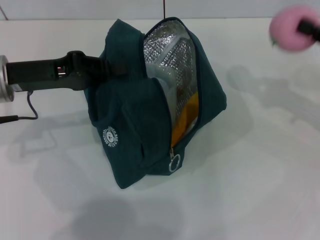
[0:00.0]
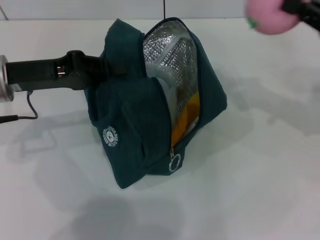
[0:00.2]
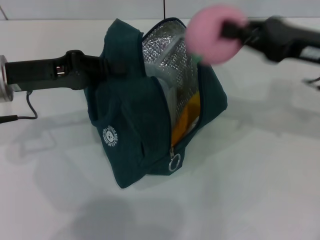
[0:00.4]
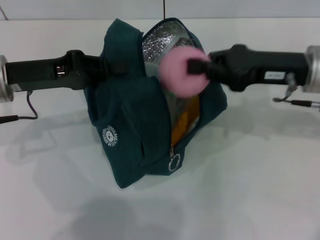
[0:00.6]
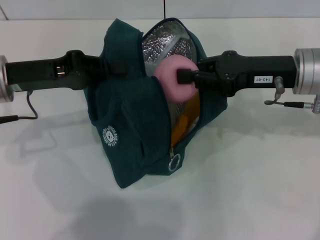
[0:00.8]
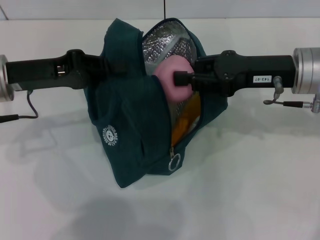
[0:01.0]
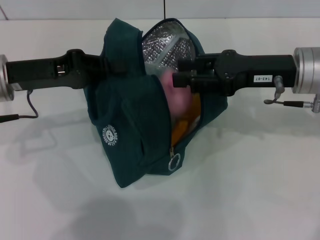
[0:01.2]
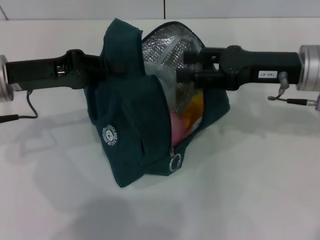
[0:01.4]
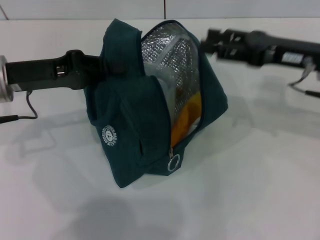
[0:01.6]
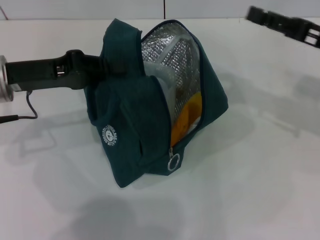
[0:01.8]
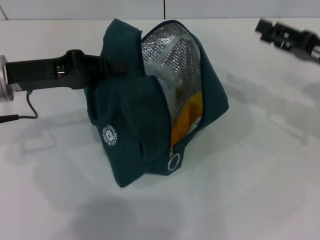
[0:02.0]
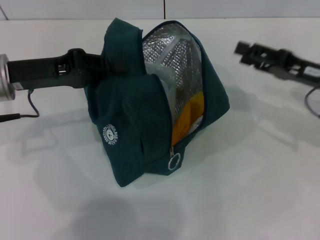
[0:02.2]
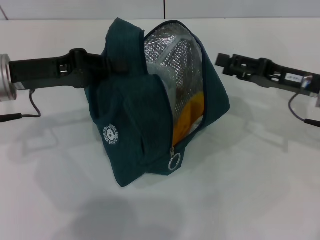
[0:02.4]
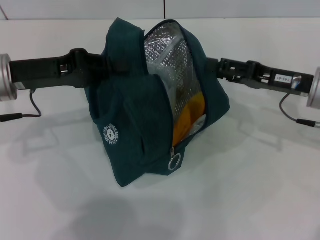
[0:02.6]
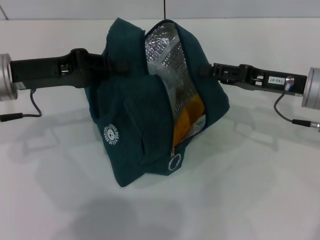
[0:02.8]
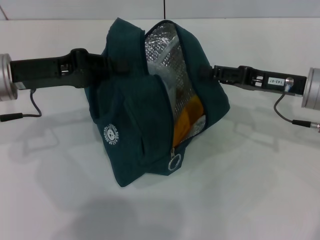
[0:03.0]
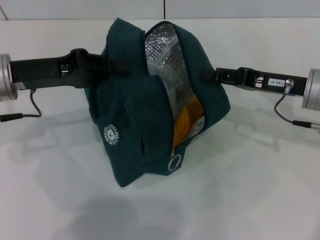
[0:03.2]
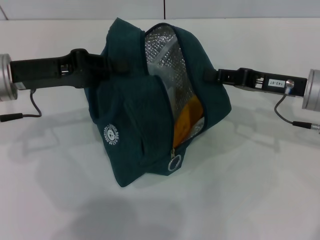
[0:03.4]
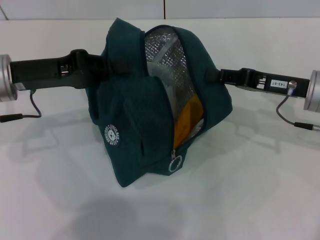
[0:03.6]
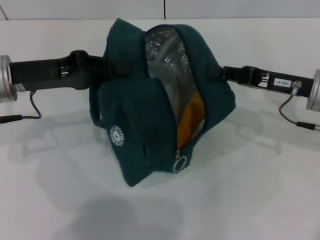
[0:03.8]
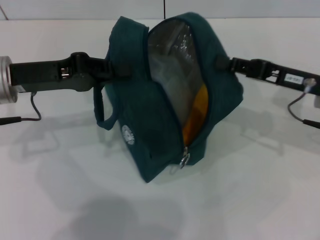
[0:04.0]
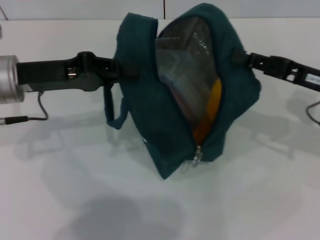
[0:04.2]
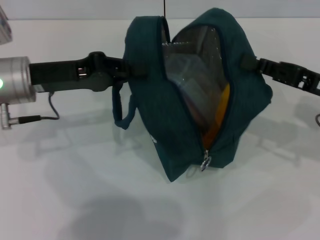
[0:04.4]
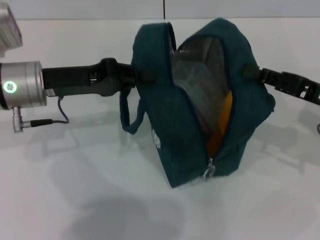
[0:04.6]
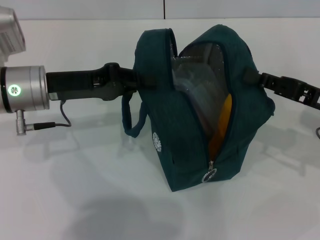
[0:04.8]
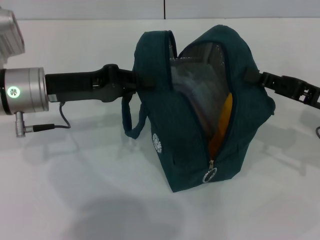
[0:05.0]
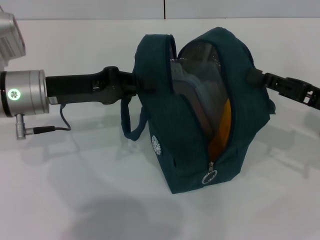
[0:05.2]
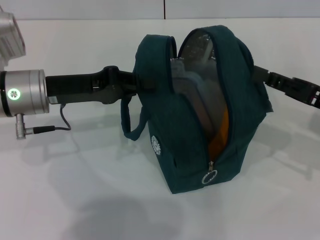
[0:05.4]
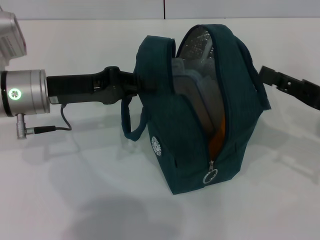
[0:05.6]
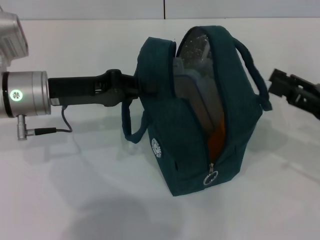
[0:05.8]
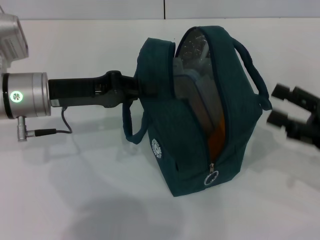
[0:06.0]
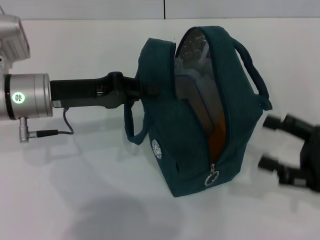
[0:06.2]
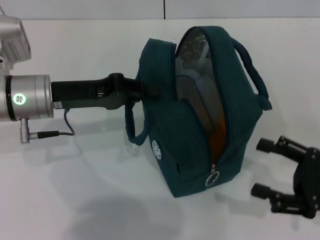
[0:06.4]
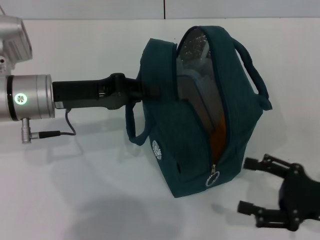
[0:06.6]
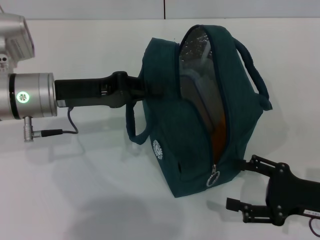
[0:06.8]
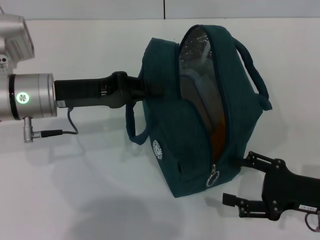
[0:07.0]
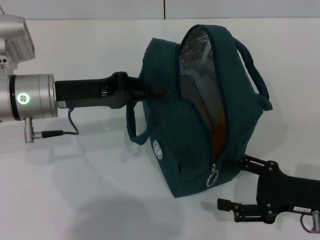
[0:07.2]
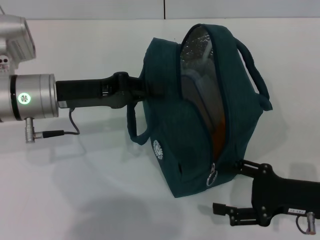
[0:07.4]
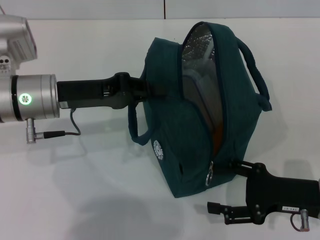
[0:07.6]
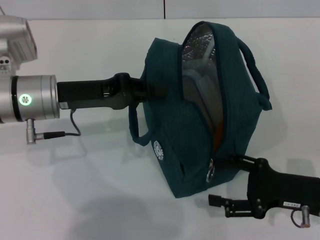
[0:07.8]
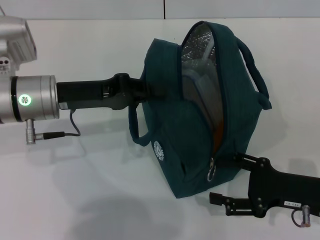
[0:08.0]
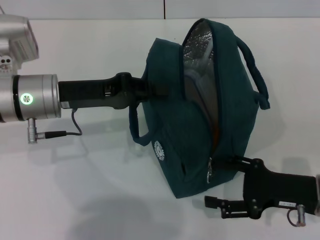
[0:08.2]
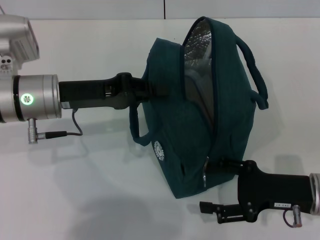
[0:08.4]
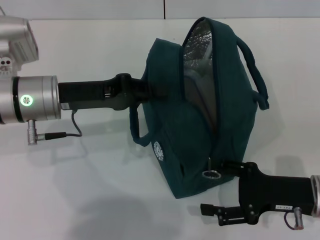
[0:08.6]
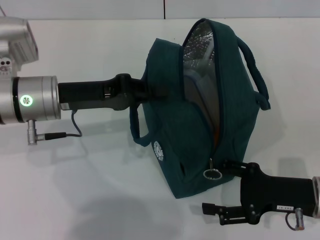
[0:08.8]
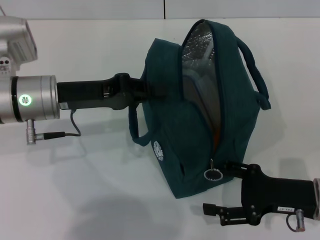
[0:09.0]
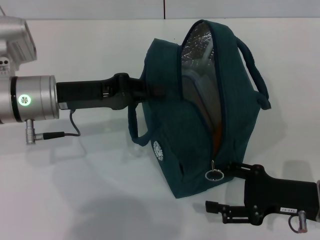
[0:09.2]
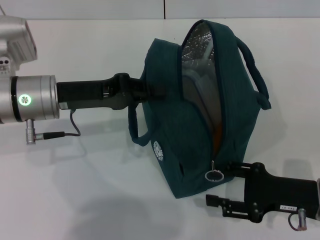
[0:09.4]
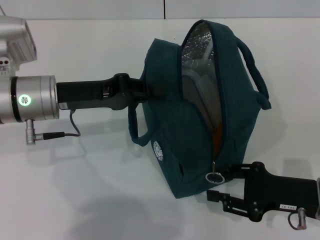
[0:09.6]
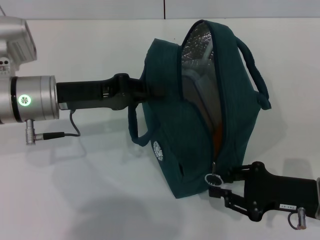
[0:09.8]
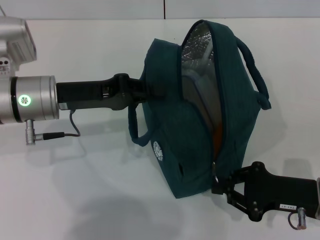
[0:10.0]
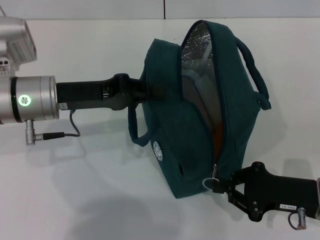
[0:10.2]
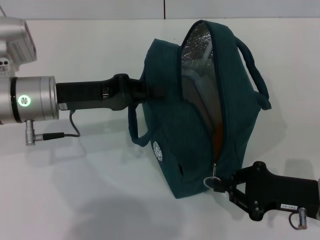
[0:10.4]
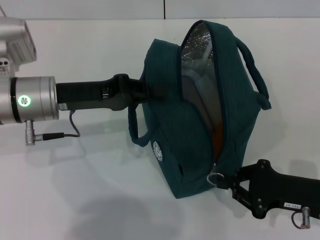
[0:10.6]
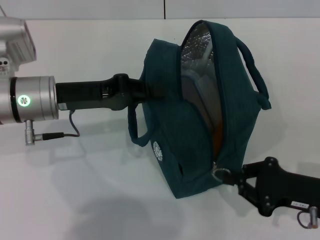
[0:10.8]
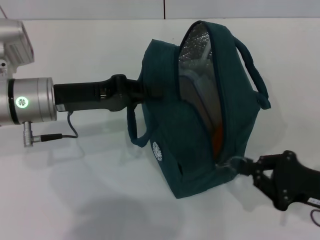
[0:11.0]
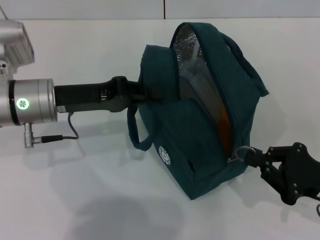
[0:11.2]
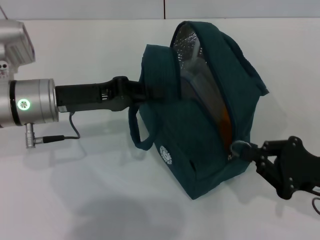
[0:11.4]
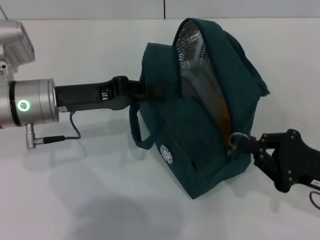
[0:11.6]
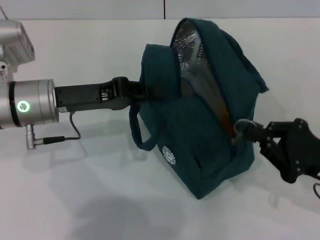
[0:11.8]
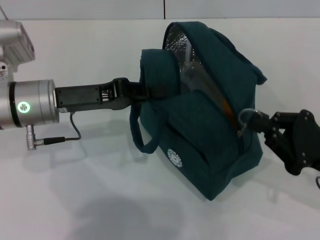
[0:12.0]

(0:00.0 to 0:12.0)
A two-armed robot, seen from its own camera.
Step, 0:01.6 - 0:05.6: Hold the lunch bag with your right hand.
0:00.0 - 0:01.6: The right gripper heads to the left, covering approximately 10 cm, and opens its fingers.
0:01.6 - 0:03.0: The right gripper goes some 5 cm downward.
0:03.0 - 0:04.4: The right gripper ends up roughly 5 cm from where it was, and closes up.
0:04.4 - 0:06.0: The right gripper travels backward by about 5 cm, and opens up.
0:06.0 - 0:07.6: The right gripper shifts approximately 10 cm downward and to the left.
0:07.6 - 0:09.0: The grippers stay close to where they were, moving slightly.
0:09.0 - 0:10.4: The right gripper closes its fingers.

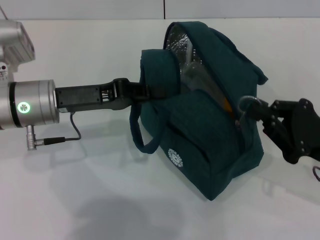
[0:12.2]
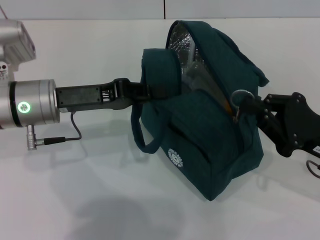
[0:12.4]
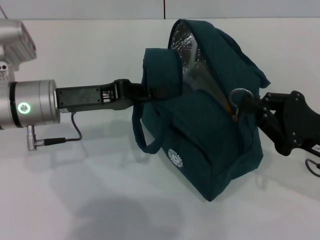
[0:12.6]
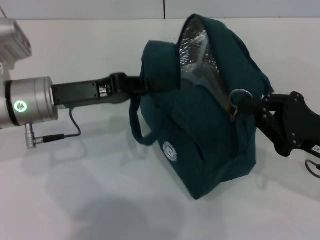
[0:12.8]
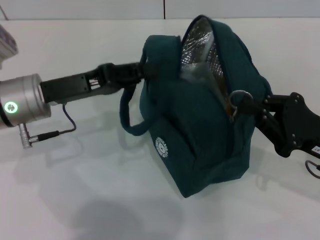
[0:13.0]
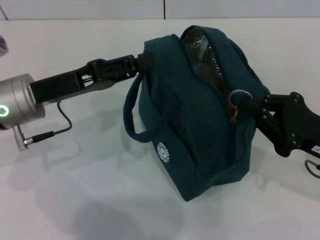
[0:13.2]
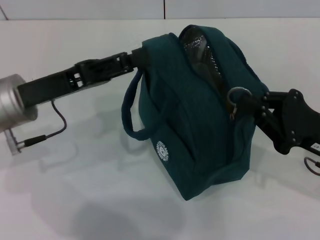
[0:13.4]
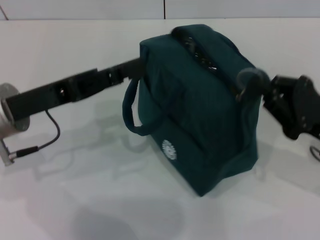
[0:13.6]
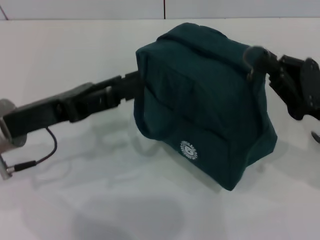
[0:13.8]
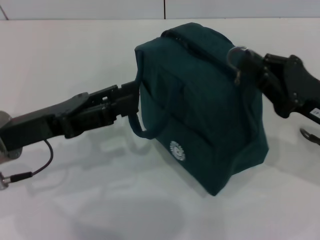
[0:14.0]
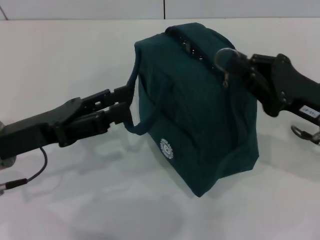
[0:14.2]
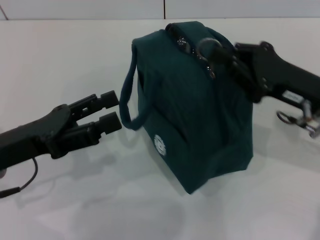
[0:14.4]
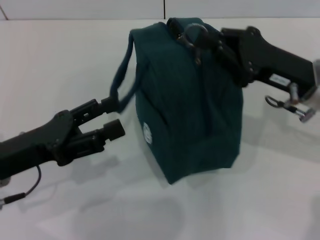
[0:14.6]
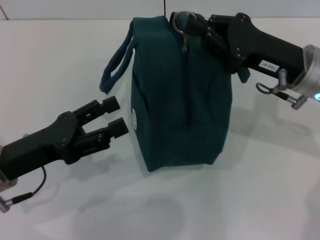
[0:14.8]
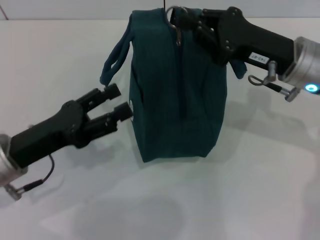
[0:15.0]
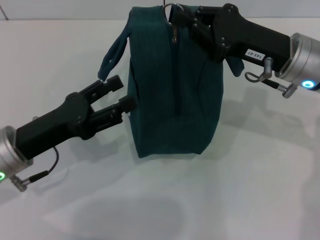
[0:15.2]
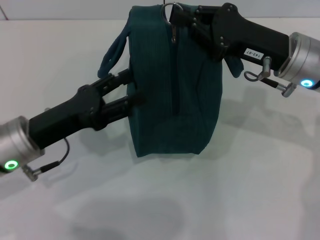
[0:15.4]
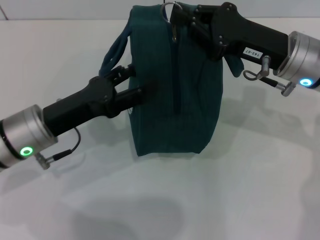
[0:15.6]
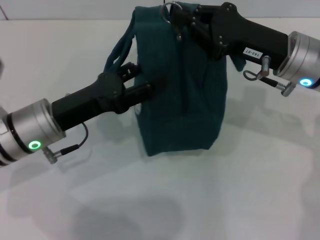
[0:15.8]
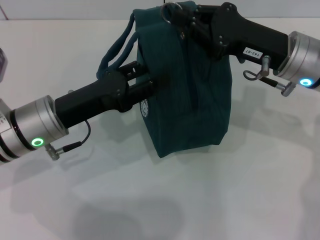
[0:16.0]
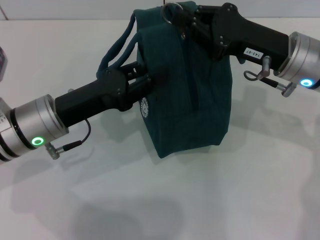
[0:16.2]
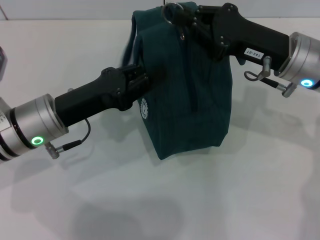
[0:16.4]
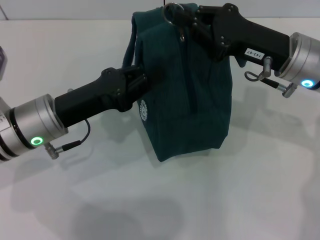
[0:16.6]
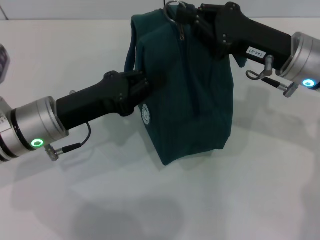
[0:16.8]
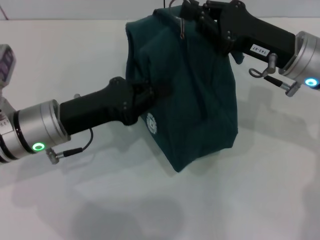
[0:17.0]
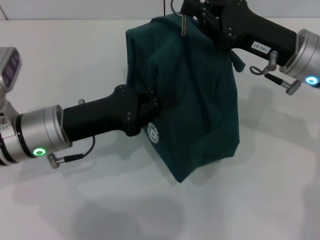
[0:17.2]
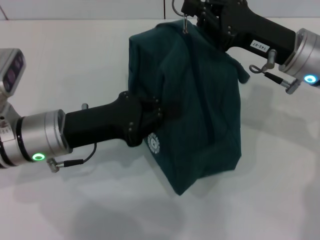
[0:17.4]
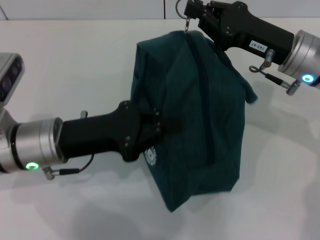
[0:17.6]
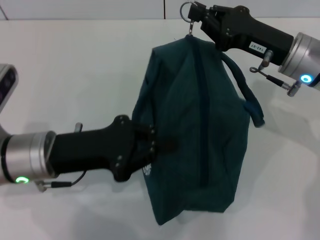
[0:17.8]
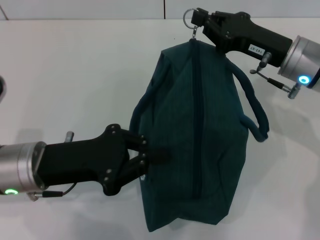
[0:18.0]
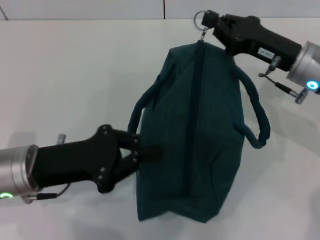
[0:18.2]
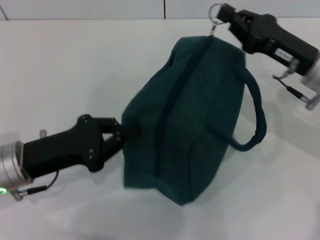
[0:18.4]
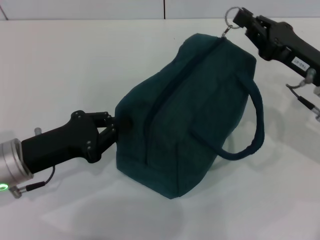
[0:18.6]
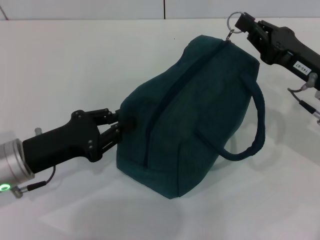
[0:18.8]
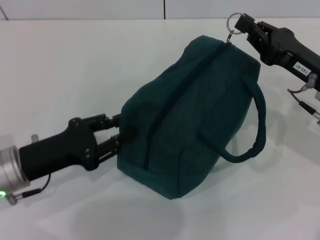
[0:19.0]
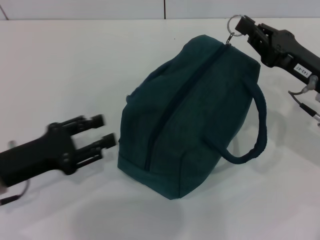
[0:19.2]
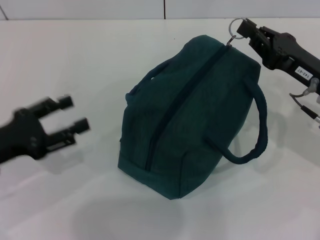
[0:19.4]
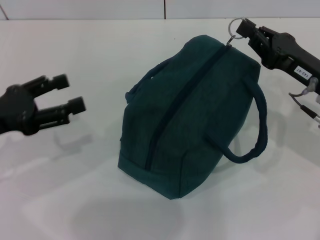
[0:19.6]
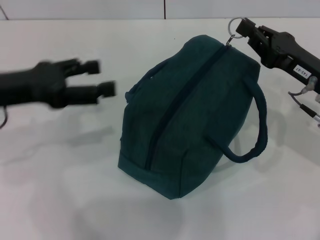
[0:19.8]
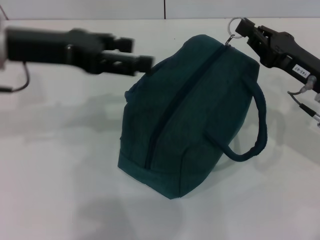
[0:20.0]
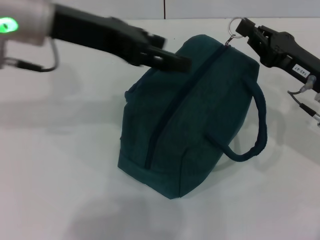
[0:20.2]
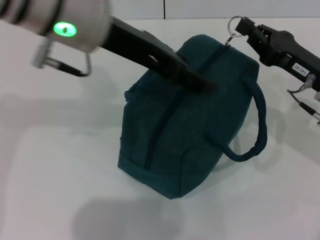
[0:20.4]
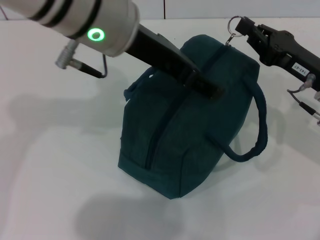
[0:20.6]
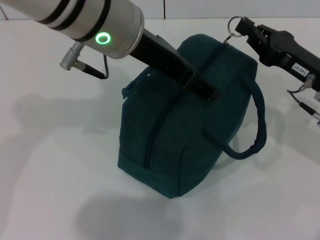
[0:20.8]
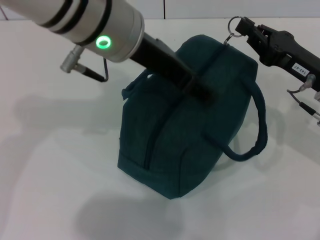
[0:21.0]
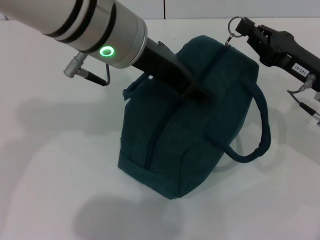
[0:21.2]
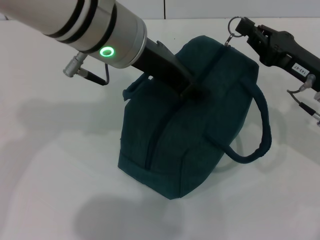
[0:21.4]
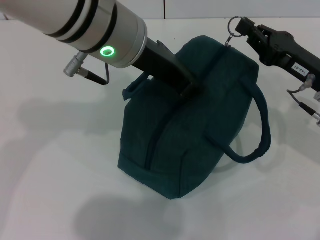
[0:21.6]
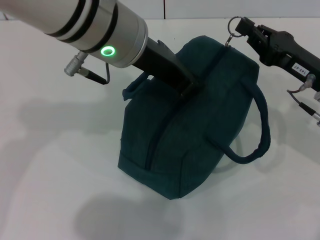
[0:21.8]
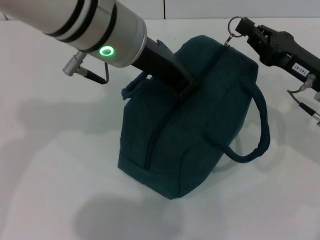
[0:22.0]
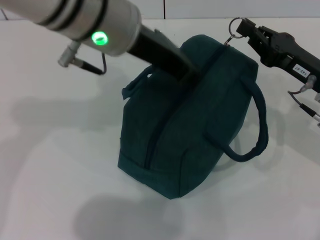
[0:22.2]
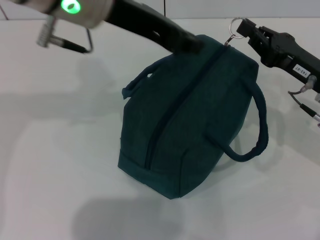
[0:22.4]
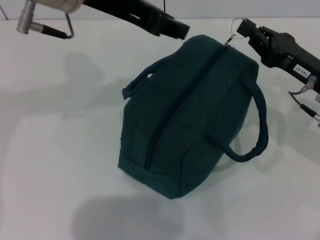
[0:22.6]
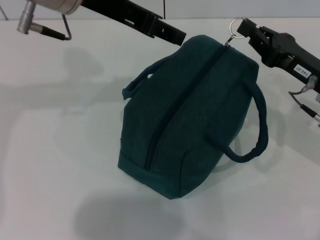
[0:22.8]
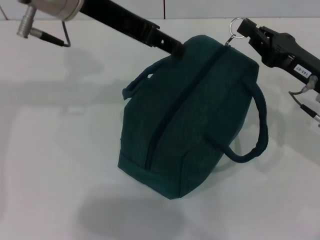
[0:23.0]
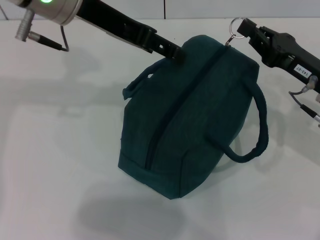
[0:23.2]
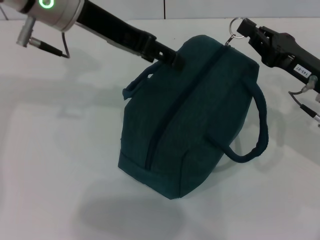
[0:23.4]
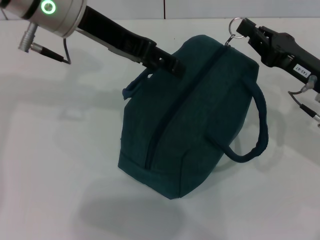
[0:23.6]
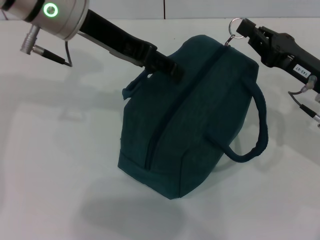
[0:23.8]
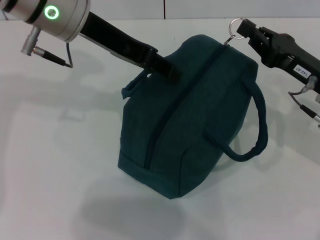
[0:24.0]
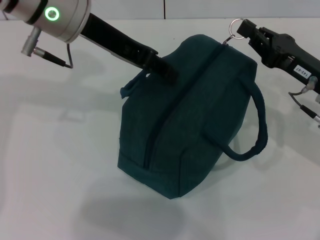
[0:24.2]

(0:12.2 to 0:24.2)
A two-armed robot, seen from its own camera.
0:12.2 - 0:13.8: The left gripper goes about 5 cm backward, and opens its fingers.
0:13.8 - 0:15.2: The right gripper goes approximately 10 cm forward and to the left.
0:15.2 - 0:16.6: The left gripper changes place by approximately 5 cm, and closes its fingers.
0:16.6 - 0:18.2: The left gripper moves backward, approximately 5 cm.
0:18.2 - 0:19.8: The left gripper goes approximately 10 cm upward, and opens up. The right gripper ends up roughly 5 cm from where it was.
0:19.8 - 0:21.2: The left gripper heads to the right, covering approximately 20 cm.
0:21.2 - 0:22.6: The left gripper shifts some 5 cm to the left, and closes.
0:22.6 - 0:24.2: The left gripper ends up some 5 cm from where it was, and opens up.
